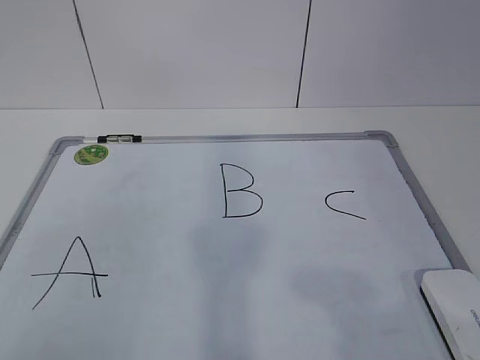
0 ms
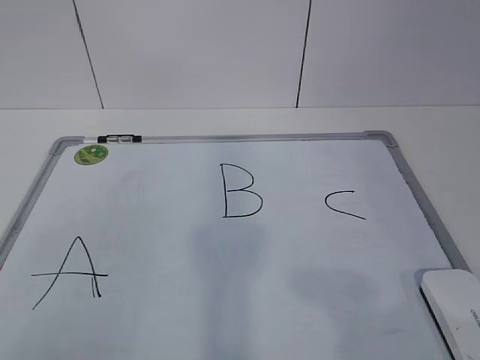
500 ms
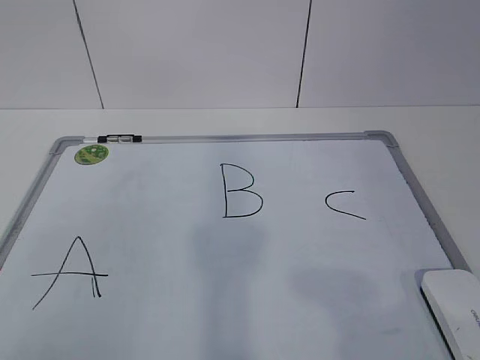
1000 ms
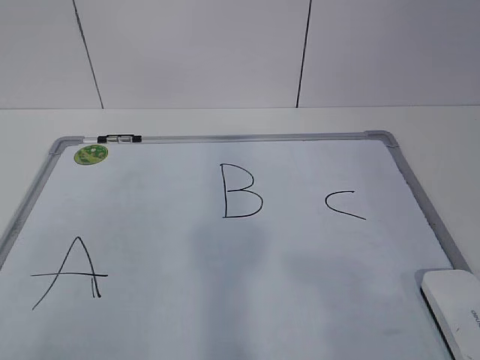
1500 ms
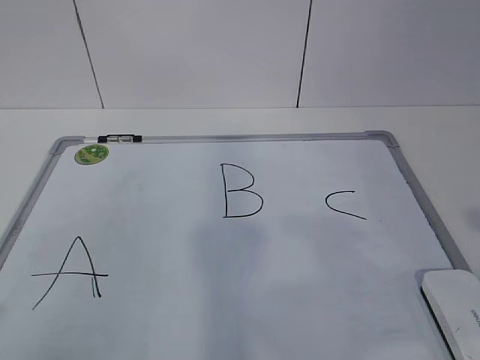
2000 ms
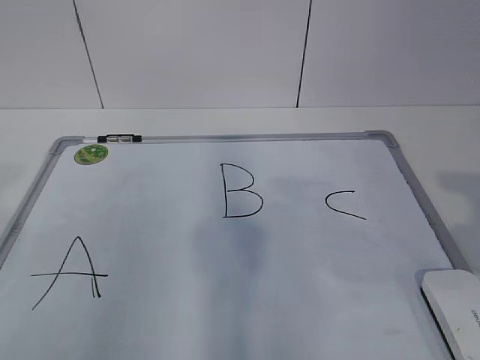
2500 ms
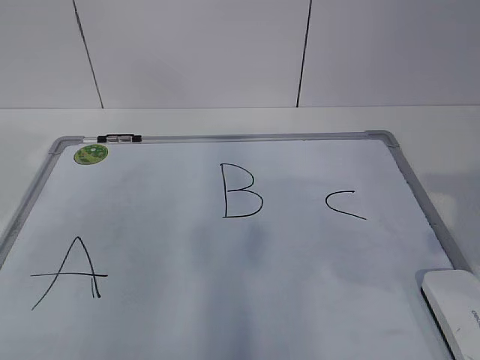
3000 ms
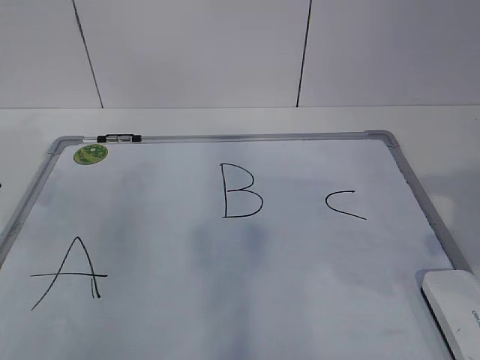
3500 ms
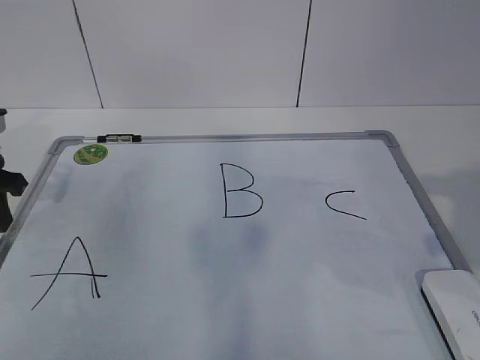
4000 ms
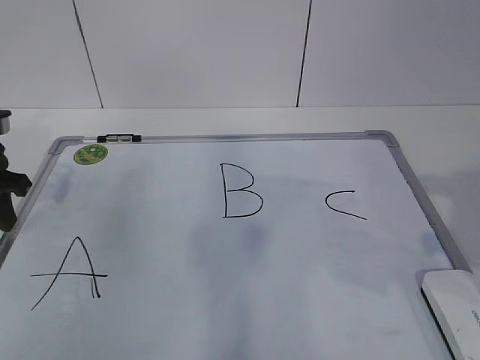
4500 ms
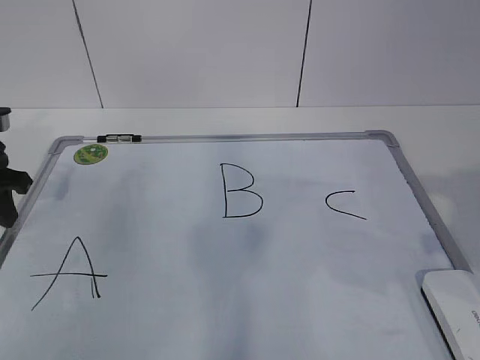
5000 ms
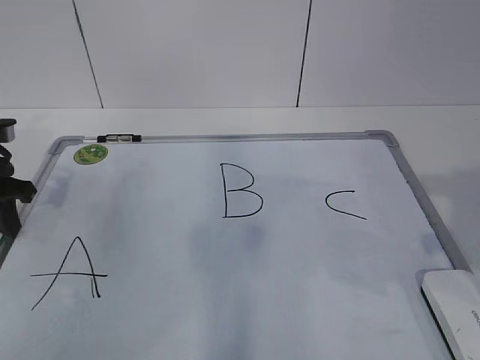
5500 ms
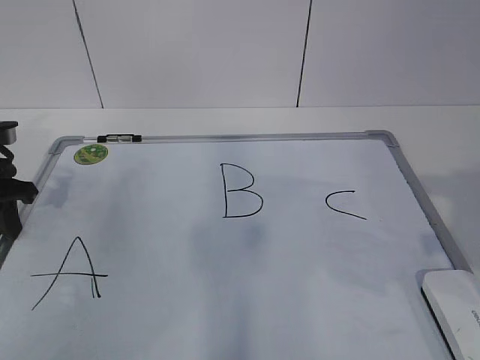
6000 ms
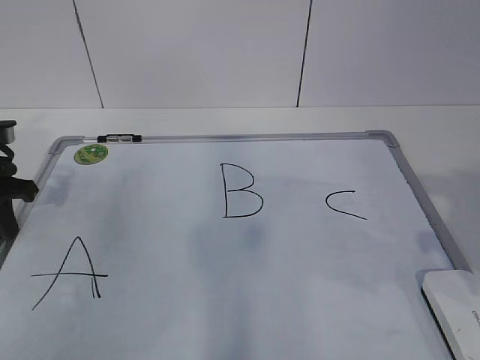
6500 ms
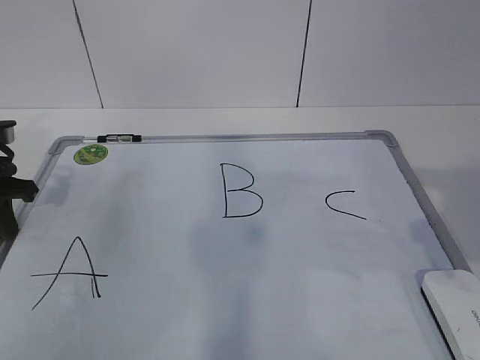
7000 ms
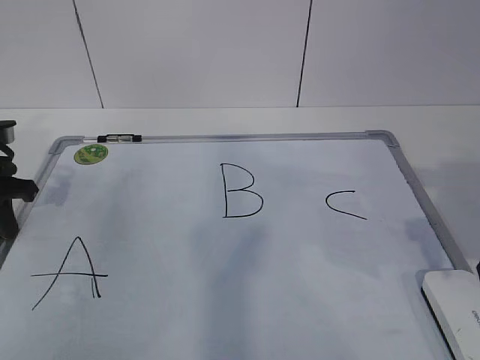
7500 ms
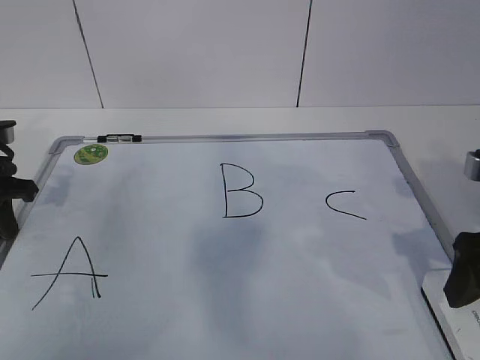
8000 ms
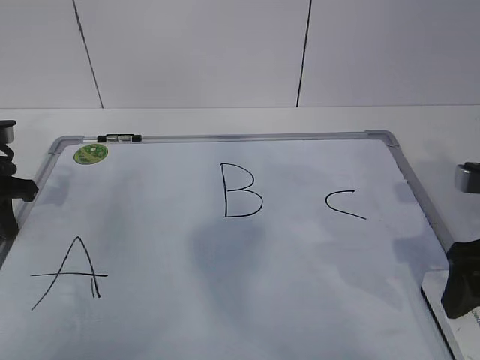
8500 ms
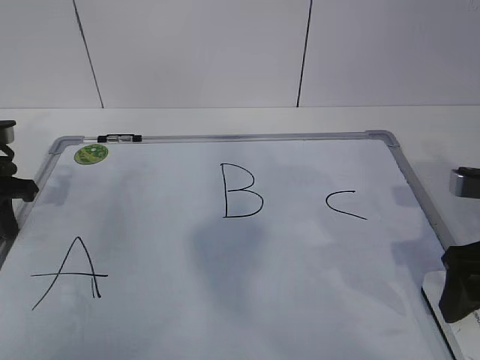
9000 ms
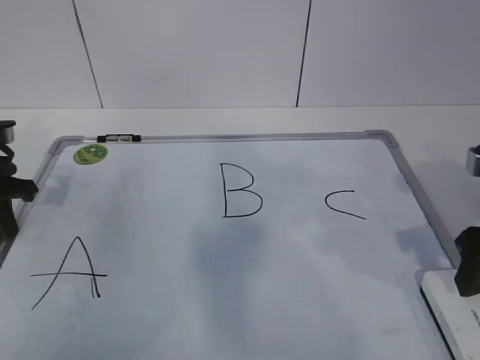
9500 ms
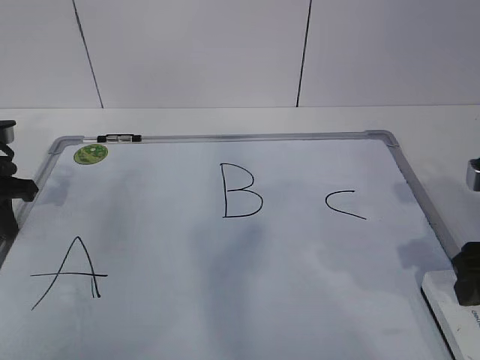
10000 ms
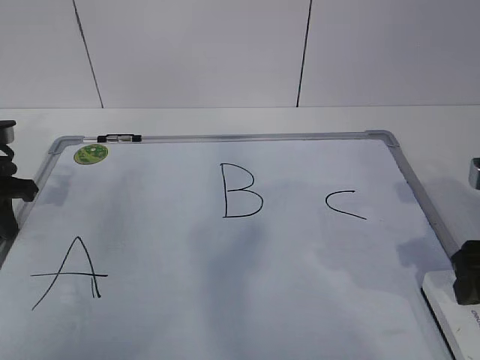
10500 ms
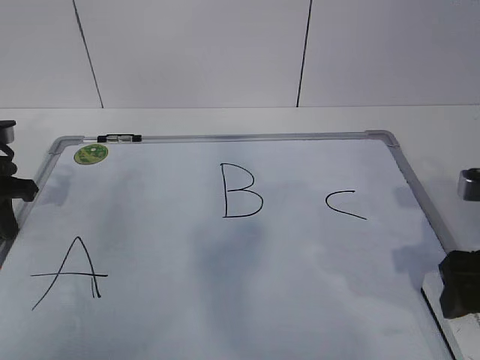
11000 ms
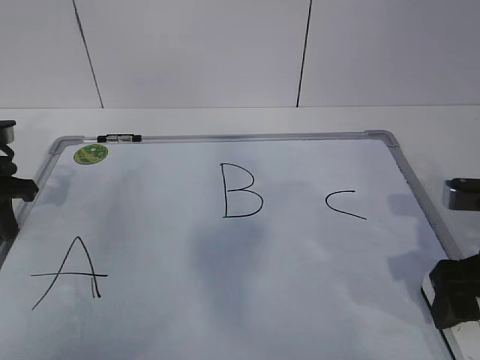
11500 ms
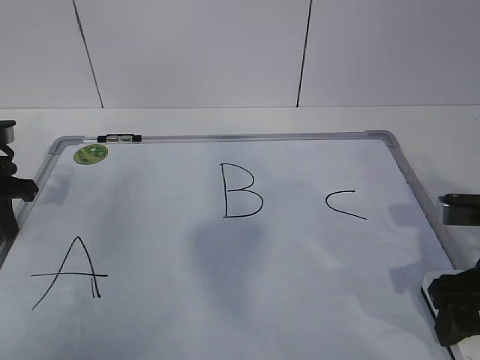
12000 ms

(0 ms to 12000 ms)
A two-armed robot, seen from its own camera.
Task of the whole recording: pick up the eraser on the blackboard and erase the letter "B".
Step, 5500 ms - 10000 ms: Grab the eraser with your right hand.
2000 ms - 4000 ms: The left gripper shifts approximately 30 cm forward.
4000 ms - 6000 ms: The grippers make only small movements.
6000 ms - 8000 ms: The right gripper is displaced forward and downward by roughly 10 cm, and opens up.
8000 ms - 10000 ms: The right gripper closes up.
10000 ms - 12000 ms: The grippers stay close to where they were, moving slightly.

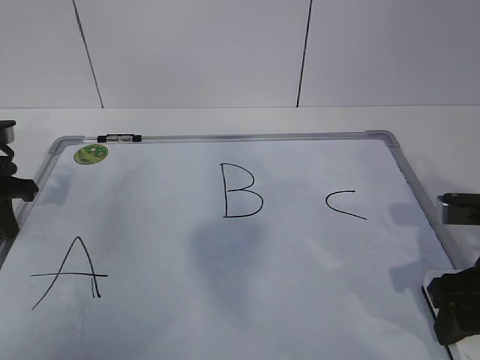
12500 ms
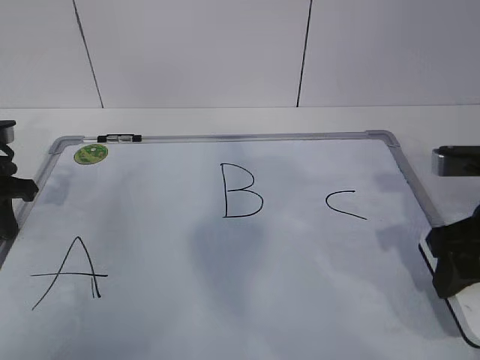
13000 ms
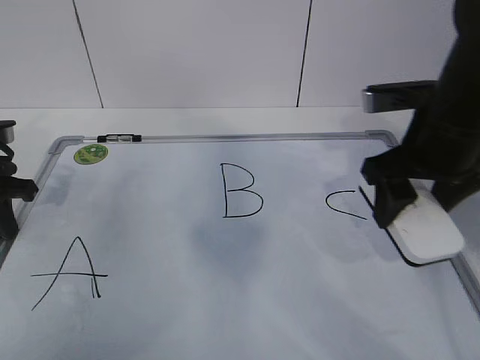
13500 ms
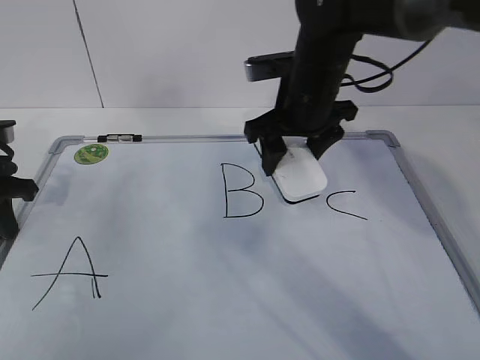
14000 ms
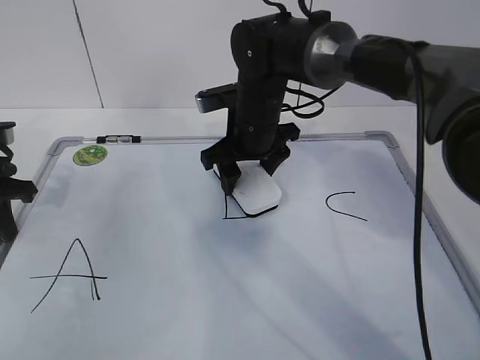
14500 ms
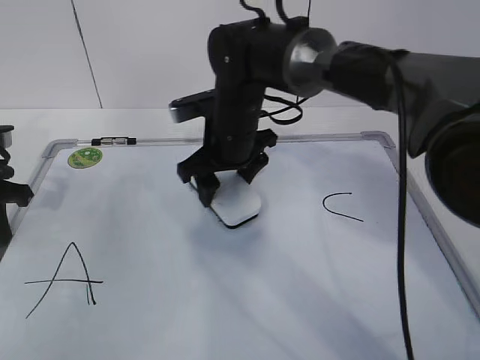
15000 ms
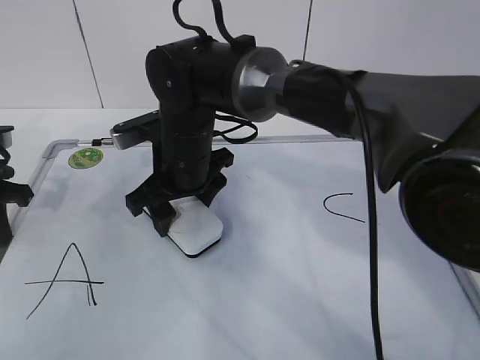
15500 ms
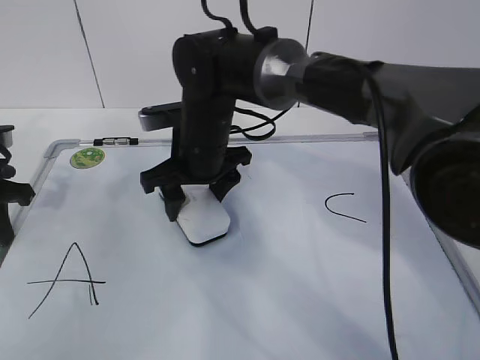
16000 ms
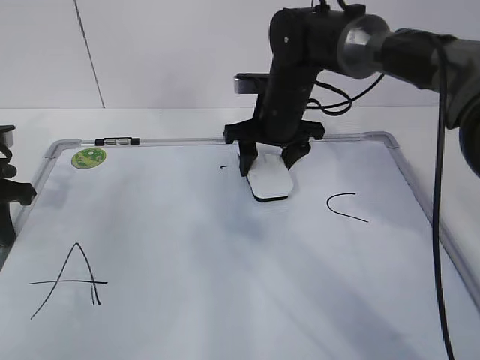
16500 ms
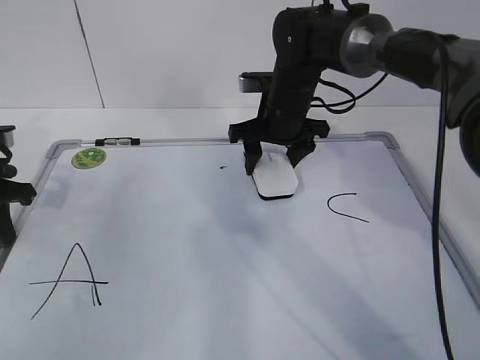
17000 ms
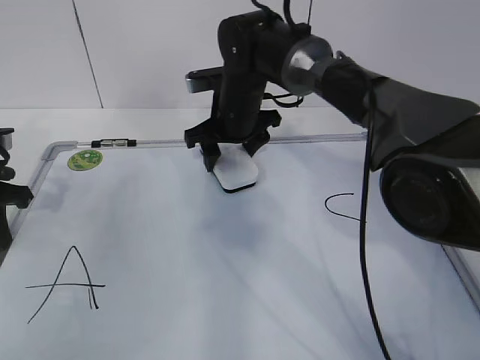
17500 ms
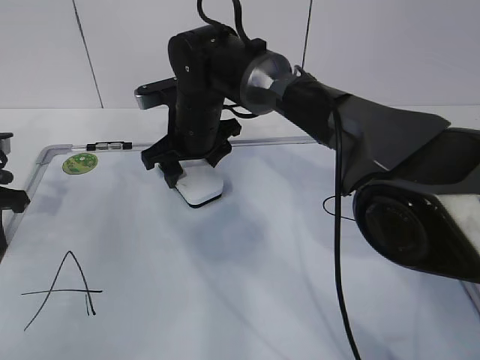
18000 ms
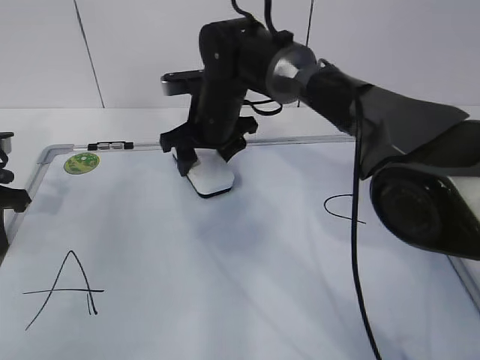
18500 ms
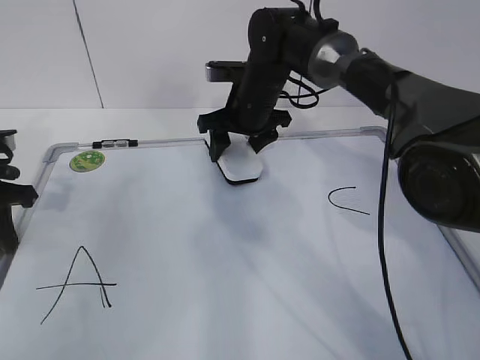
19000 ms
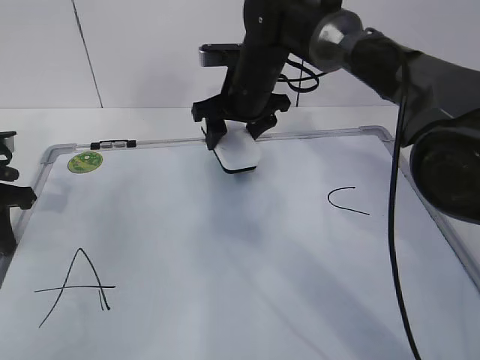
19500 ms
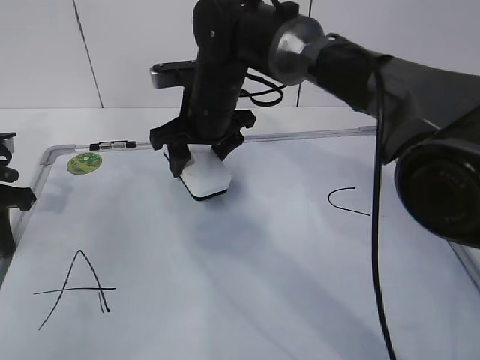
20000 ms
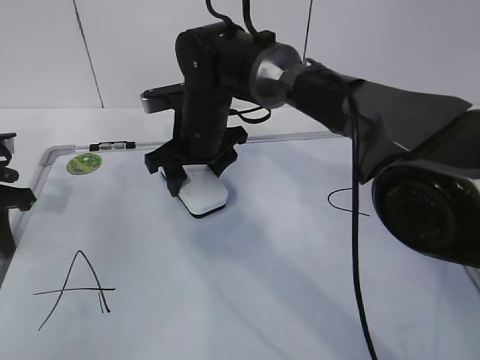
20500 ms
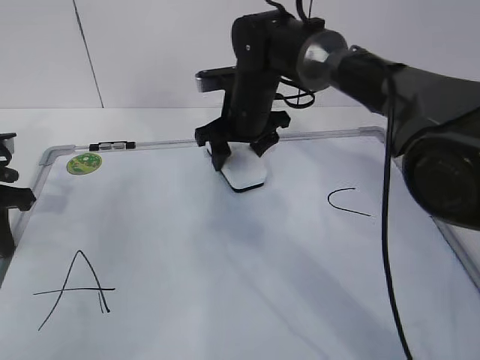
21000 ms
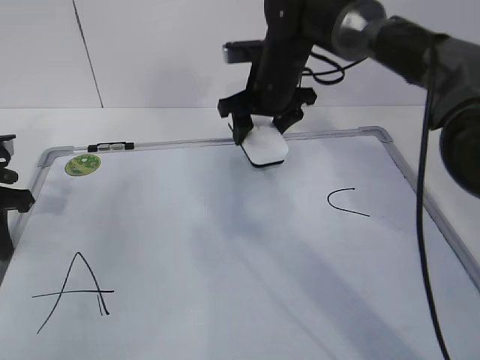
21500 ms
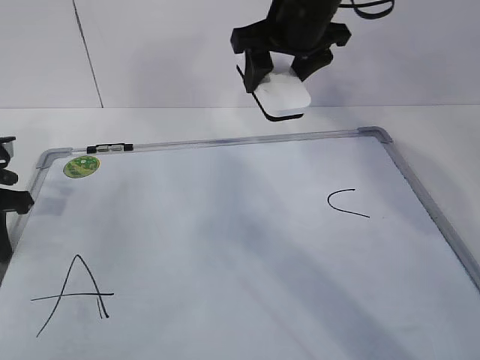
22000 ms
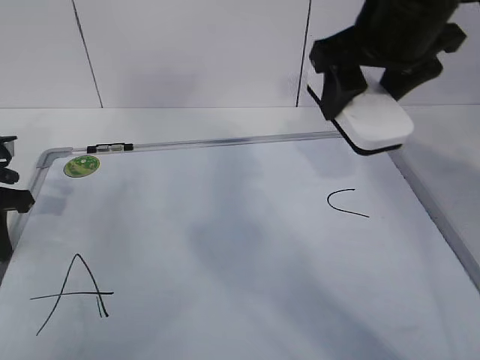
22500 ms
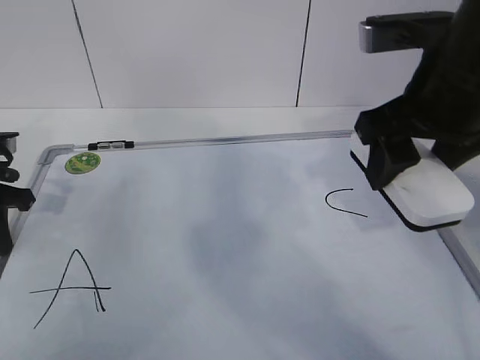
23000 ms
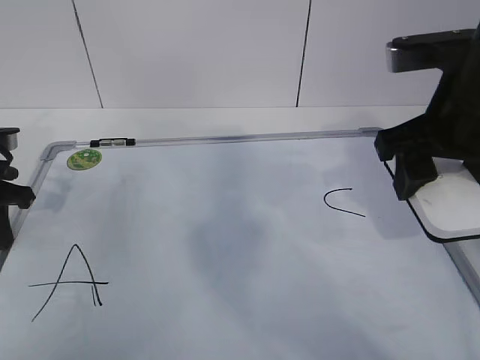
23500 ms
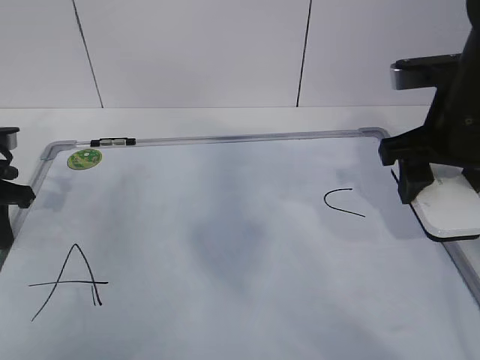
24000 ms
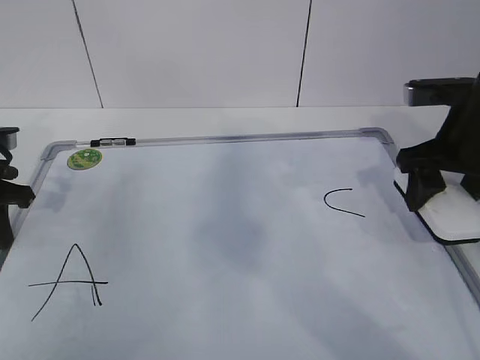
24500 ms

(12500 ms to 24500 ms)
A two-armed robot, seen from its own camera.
Task of the whole recording: pick up the eraser on the blackboard and erase the letter "B".
Step, 12500 ms - 17500 ms: Erase the letter B with your right hand.
Step, 18000 ms - 24000 ms: Put down the eraser with your right hand.
12500 ms - 14500 ms: The right gripper moves forward and to the left, approximately 30 cm.
14500 ms - 16500 ms: The right gripper travels to the left and back again, some 10 cm each way.
16500 ms - 18500 ms: The right gripper is displaced to the left by about 10 cm.
20500 ms - 22500 ms: The right gripper goes approximately 25 cm upward, to the right and backward.
22500 ms - 24500 ms: The right gripper goes some 15 cm downward and to the right.

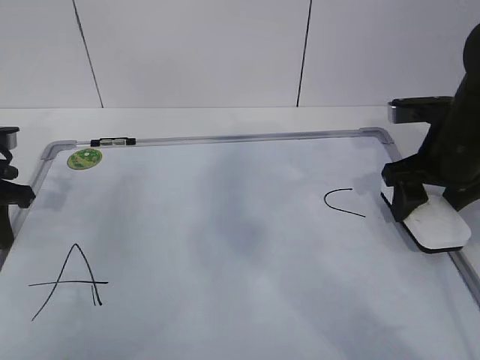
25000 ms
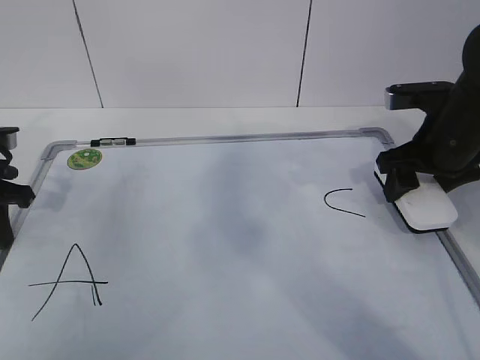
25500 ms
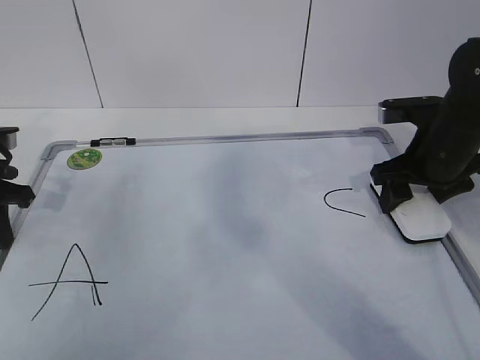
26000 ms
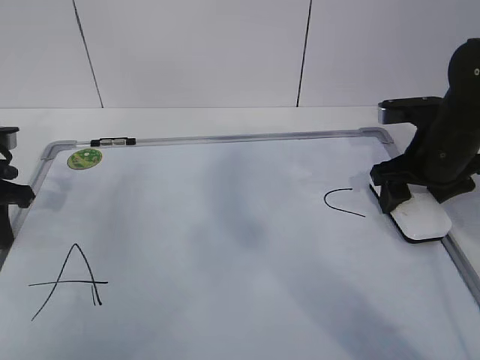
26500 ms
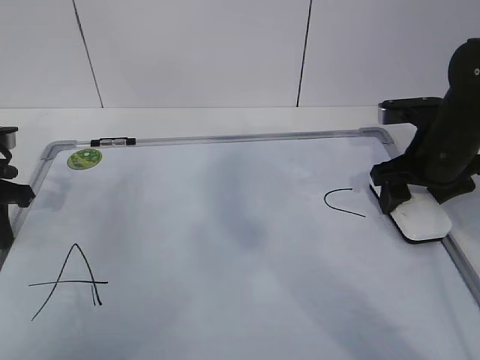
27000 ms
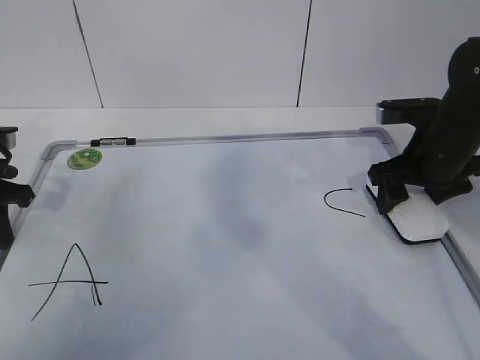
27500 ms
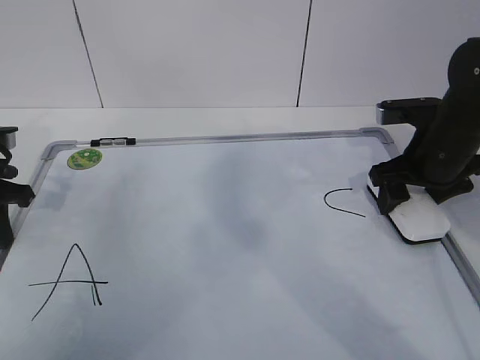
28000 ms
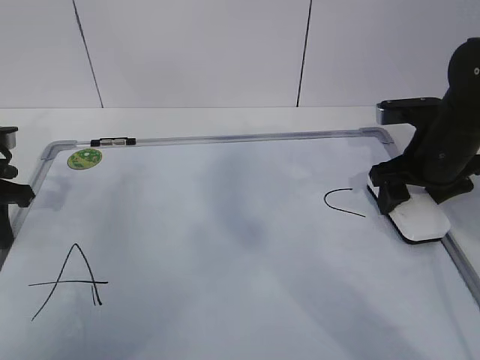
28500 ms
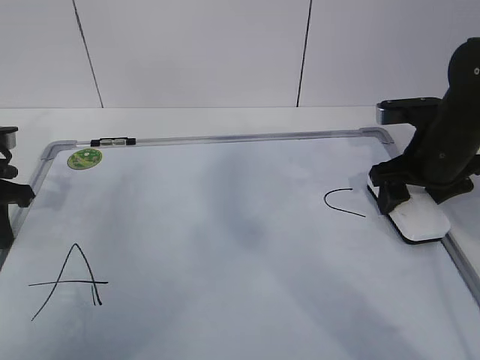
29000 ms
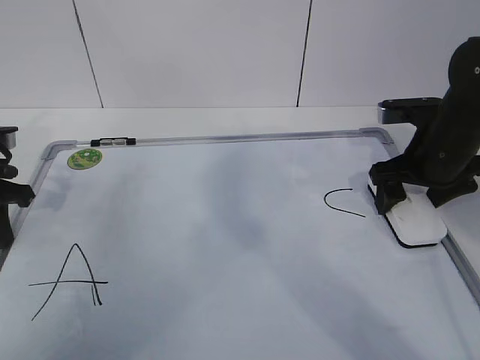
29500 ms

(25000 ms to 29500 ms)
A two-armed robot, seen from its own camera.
Task of the whole recording: pick up the eraser on the blackboard and erase the letter "B".
25000 ms - 27000 ms: There are only small adjustments of the grippers.
27000 ms - 29500 ms: The right gripper opens up.
